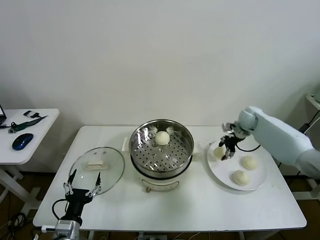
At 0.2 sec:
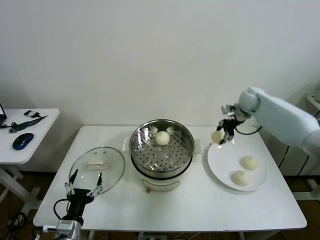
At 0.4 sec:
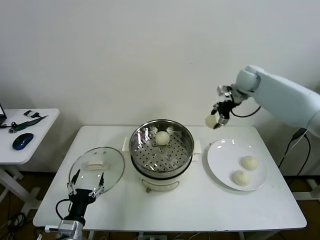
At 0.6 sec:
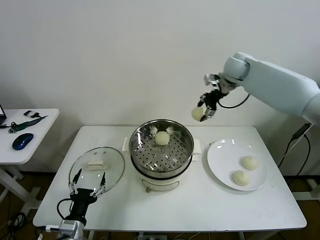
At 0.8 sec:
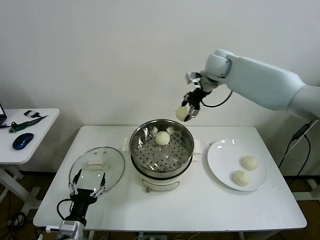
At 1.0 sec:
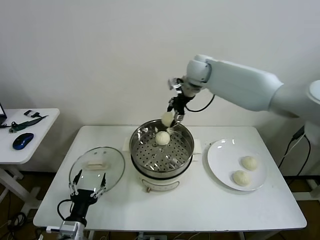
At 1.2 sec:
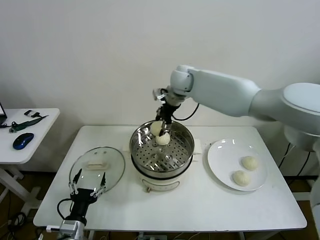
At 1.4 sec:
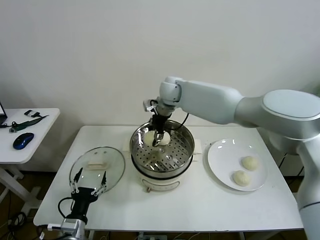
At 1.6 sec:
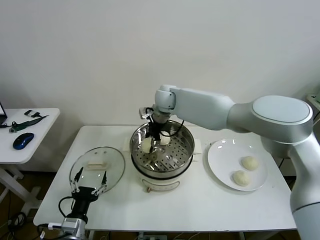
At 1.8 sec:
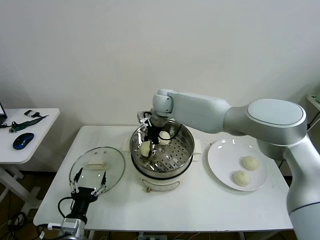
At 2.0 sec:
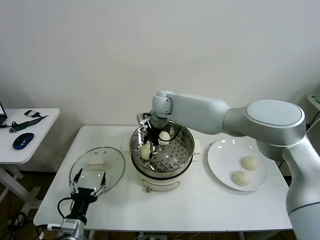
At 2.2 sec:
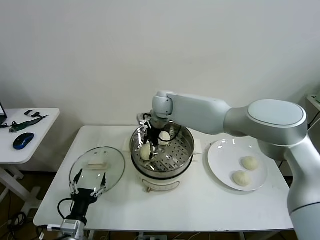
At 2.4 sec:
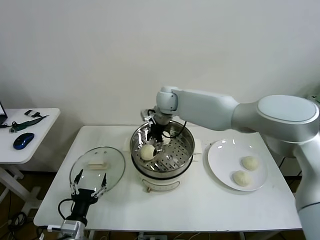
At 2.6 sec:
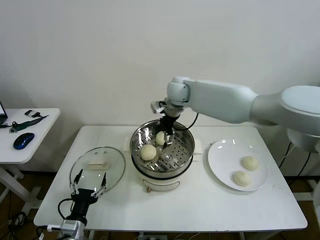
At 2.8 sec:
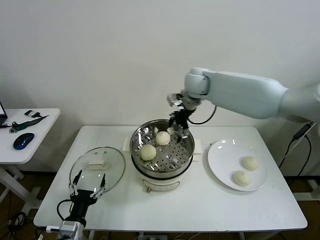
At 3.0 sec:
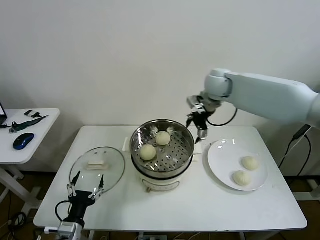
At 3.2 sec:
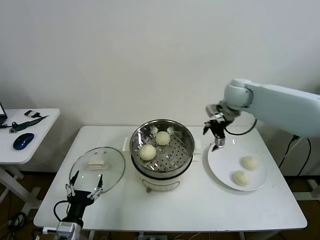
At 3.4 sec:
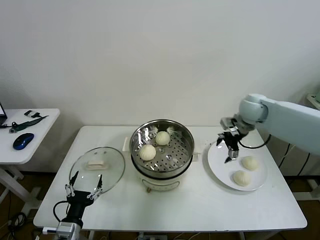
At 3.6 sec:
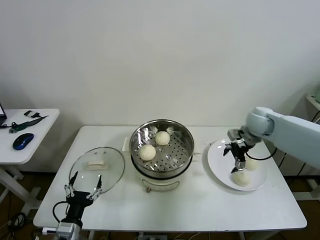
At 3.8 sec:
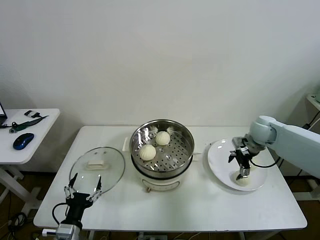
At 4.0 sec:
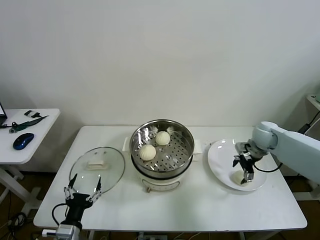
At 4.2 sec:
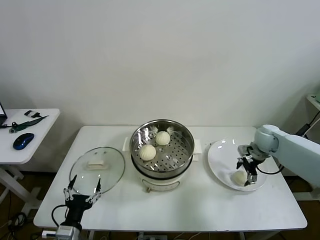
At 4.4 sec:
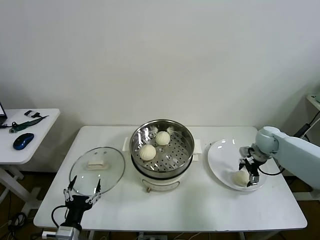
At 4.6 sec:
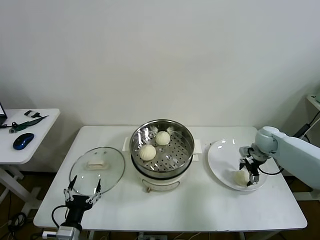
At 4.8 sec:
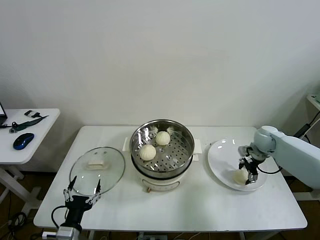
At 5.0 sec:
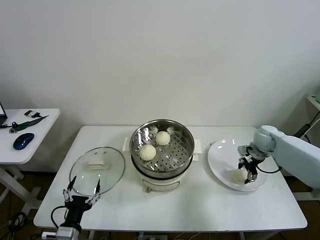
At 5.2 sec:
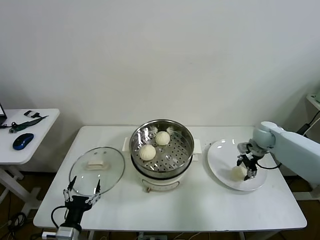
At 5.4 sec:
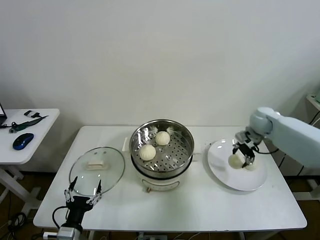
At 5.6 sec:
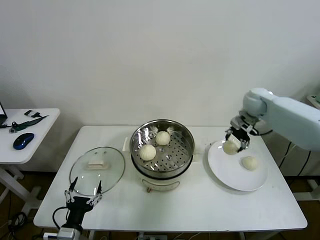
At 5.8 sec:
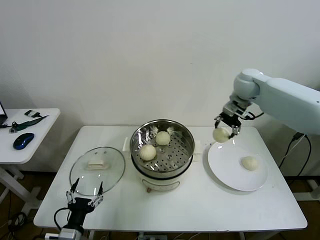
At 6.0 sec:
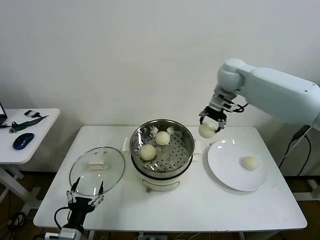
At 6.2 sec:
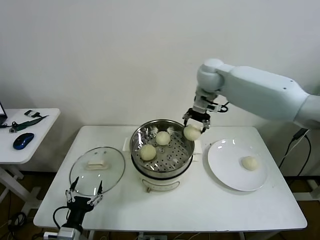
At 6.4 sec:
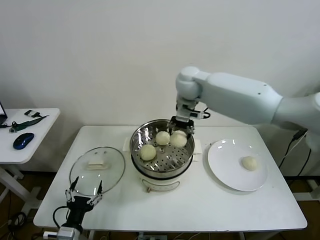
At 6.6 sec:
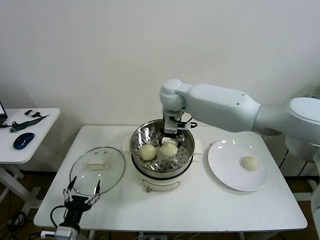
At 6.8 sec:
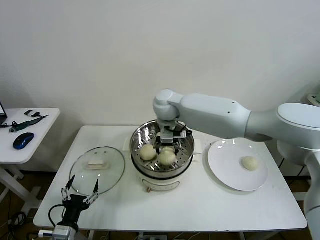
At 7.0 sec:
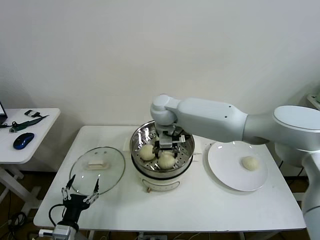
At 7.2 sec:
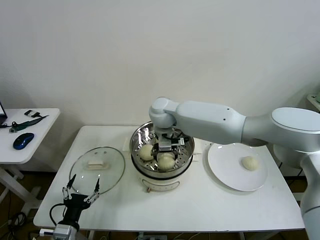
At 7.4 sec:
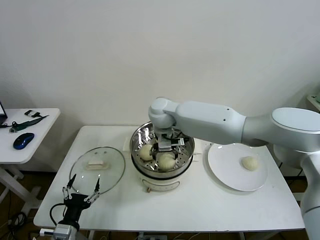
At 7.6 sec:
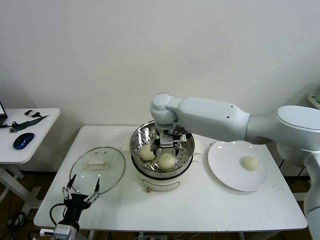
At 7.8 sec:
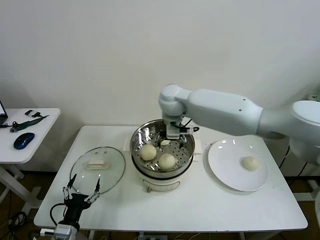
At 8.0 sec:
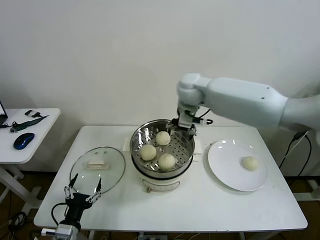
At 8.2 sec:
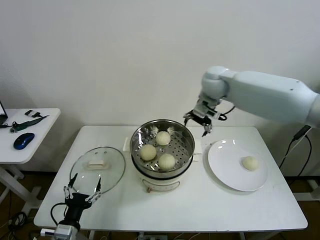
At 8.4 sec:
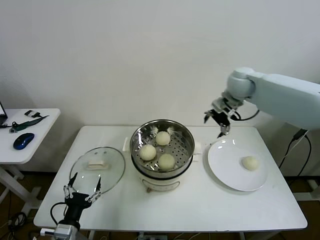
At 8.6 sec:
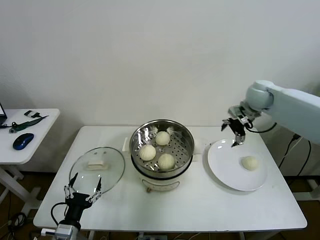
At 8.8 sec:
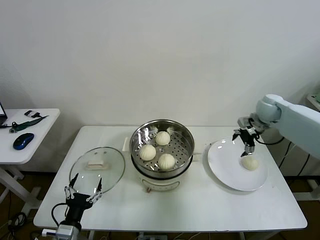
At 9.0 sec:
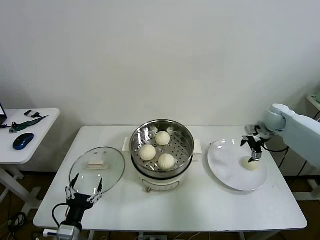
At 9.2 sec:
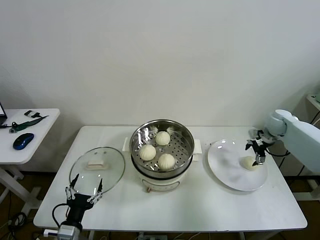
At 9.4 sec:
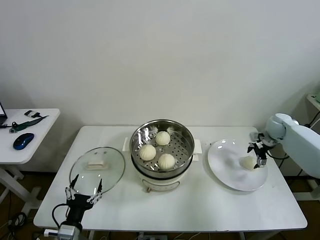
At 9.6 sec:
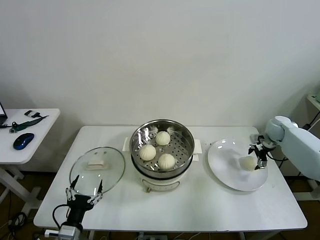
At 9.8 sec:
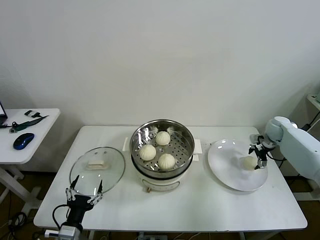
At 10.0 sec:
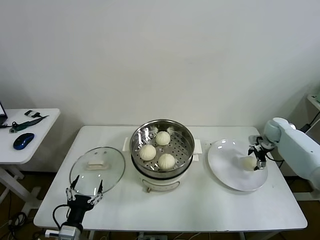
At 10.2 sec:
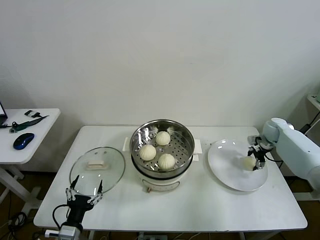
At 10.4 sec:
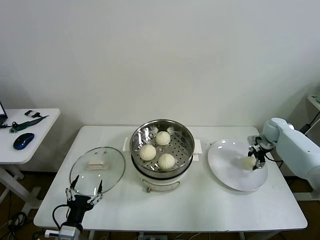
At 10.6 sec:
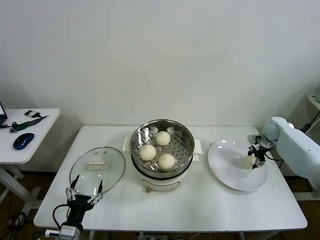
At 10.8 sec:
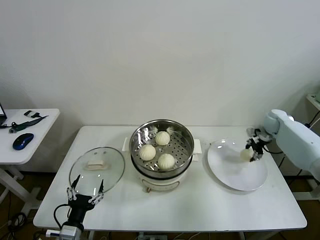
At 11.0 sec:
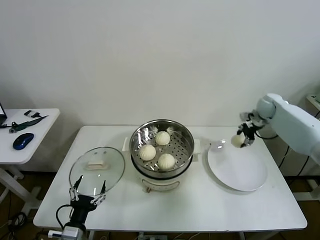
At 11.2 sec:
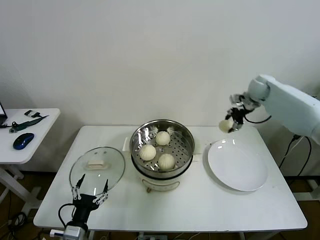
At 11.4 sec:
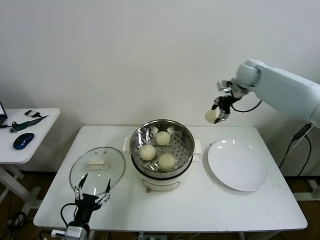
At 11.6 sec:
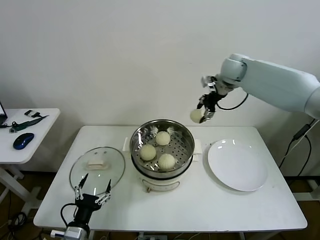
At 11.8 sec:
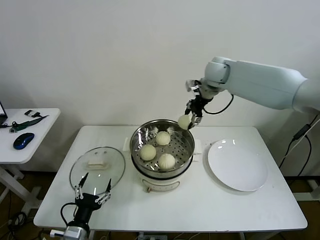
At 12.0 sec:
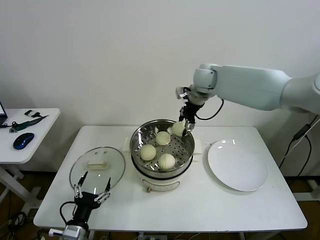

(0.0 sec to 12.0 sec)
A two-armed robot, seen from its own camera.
Task of the whole recording: take steamed baozi put them in steamer then cover it.
Step, 0.0 sec - 2.0 sec: Place the baozi on the steamer with right gripper.
Step, 2.2 sec - 4.8 sec: Grasp the baozi in the plate with right gripper.
Step, 5.0 sec - 7.4 sec: Place the baozi on the steamer with right gripper.
Step, 7.8 sec - 10.2 sec: Grasp the baozi in the plate with right gripper.
0.0 sec - 1.6 sec: The right gripper goes roughly 35 cm to the left.
1.6 sec - 3.0 sec: The right gripper heads to the right, covering roughly 20 cm, and opens.
3.0 sec - 4.4 sec: The right gripper goes roughly 30 cm downward and to the right.
4.4 sec - 6.0 sec: The right gripper goes approximately 30 cm upward and to the left, and closes up.
6.0 sec - 7.6 sec: The right gripper goes some 20 cm to the left and downward, and opens up.
7.6 sec - 9.0 sec: The right gripper heads to the right, covering about 40 cm.
9.0 sec - 10.4 sec: The right gripper is displaced downward by roughly 10 cm, and closes.
10.4 sec - 12.0 sec: The right gripper goes some 40 cm to the left and upward.

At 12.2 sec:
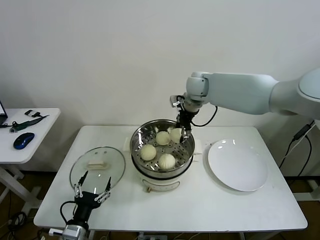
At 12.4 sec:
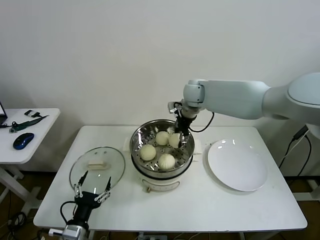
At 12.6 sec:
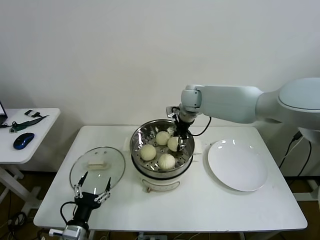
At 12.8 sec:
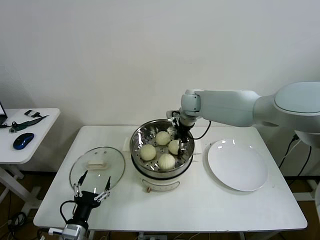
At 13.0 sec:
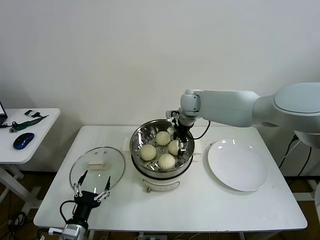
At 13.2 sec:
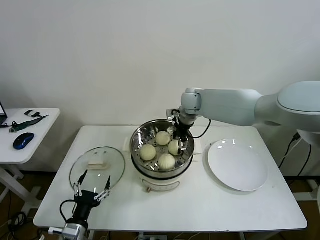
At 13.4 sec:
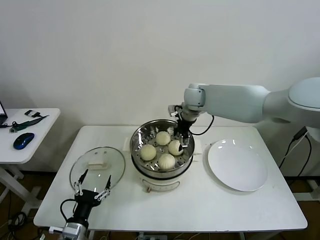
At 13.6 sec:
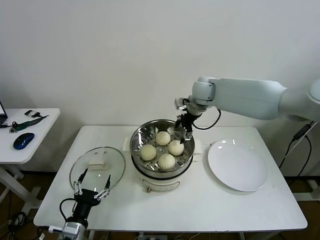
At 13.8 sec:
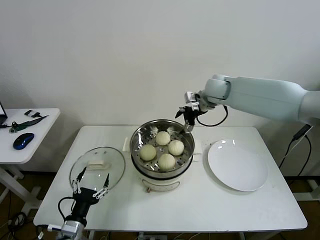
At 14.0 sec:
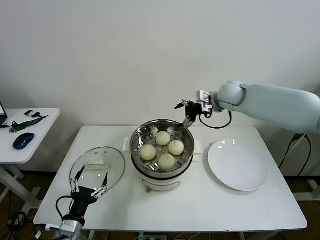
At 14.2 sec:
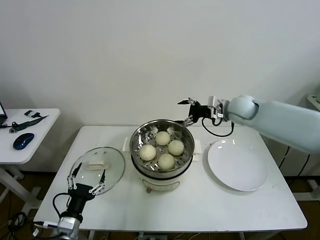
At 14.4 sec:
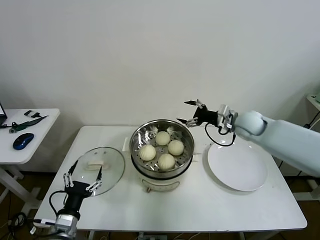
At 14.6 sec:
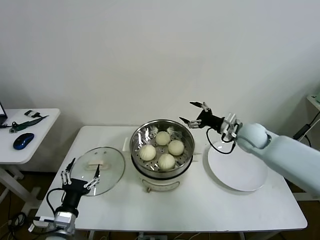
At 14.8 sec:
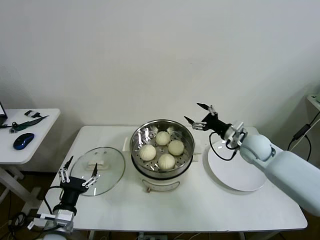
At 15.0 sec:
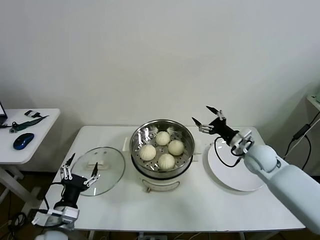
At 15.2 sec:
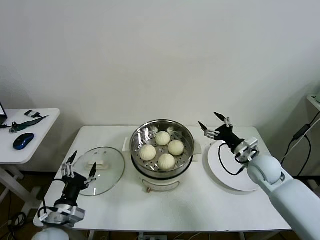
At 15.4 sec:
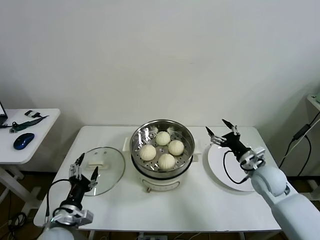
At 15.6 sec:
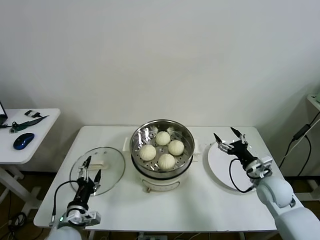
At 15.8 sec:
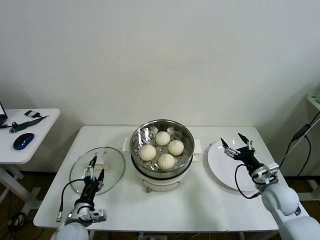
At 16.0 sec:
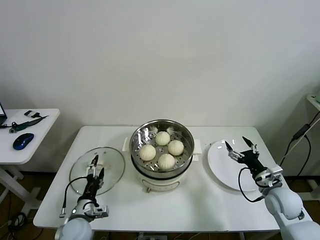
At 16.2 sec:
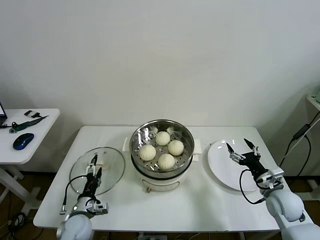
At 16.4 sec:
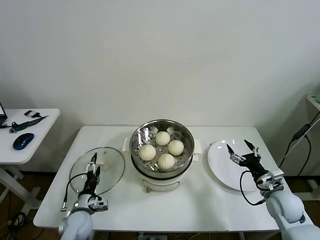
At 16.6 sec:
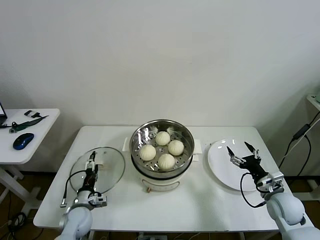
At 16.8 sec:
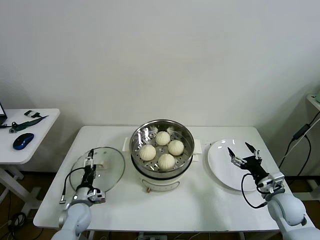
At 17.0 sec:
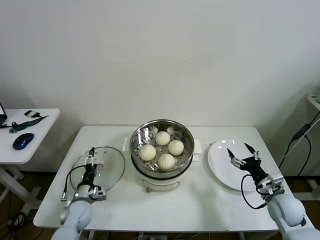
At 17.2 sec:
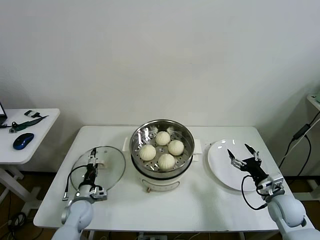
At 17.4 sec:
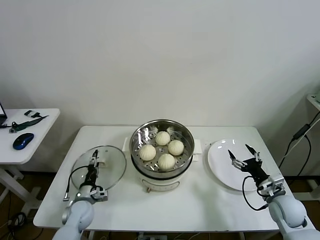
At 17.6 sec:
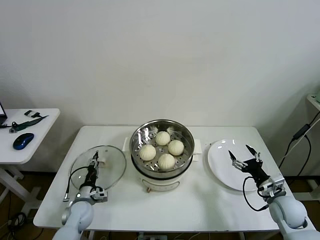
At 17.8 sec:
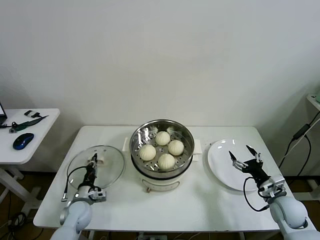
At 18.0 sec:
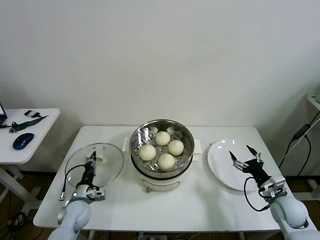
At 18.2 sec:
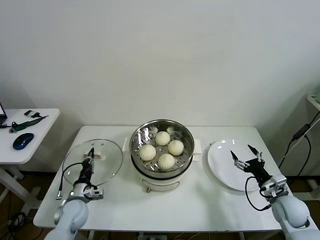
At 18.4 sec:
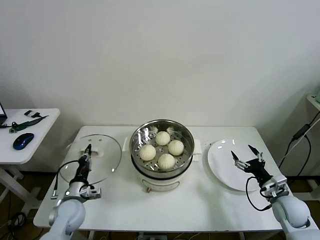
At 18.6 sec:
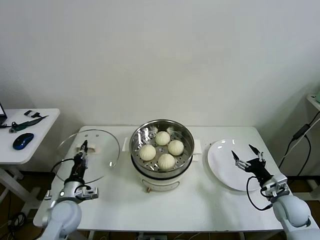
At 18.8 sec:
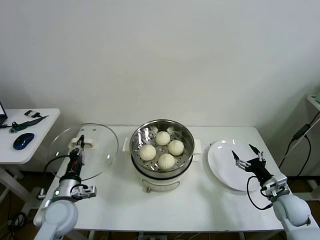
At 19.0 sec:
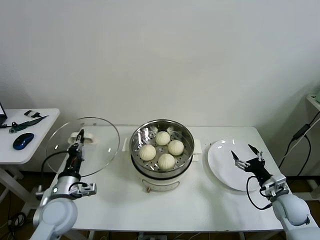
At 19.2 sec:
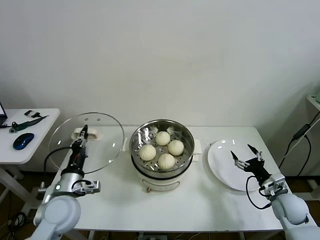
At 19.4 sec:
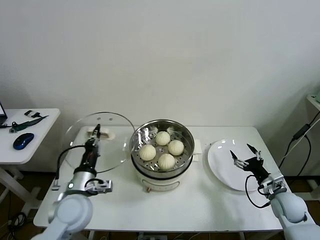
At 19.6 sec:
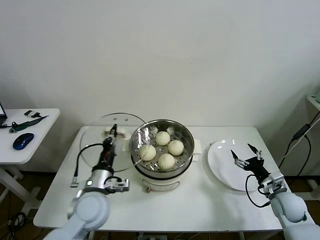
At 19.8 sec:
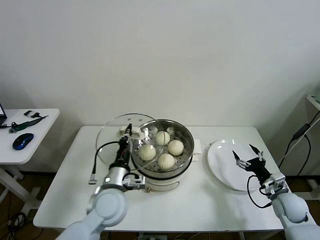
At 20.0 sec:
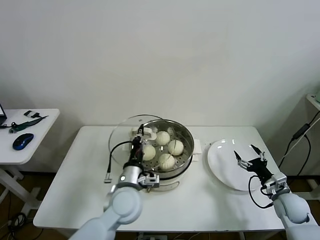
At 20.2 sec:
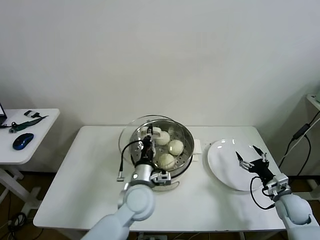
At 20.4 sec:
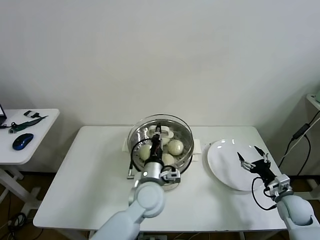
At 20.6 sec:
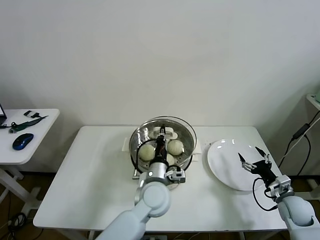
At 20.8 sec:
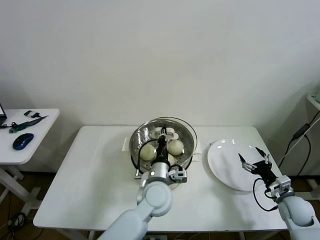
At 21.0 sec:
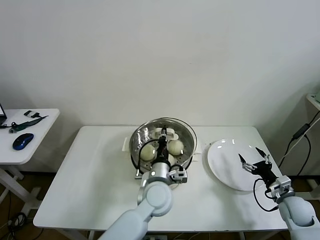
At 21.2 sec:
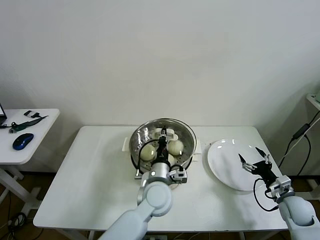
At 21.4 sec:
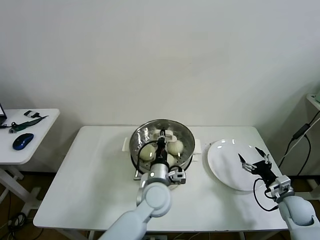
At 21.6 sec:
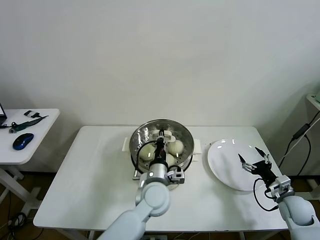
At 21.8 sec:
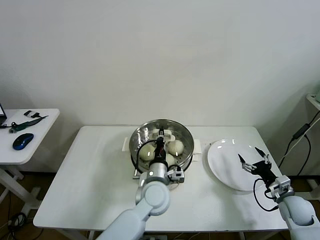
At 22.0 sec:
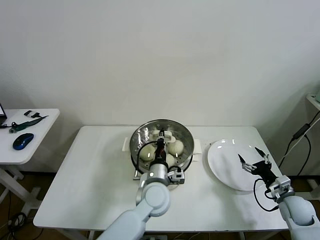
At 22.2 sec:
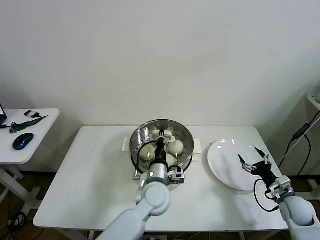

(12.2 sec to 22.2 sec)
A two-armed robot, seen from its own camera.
Task of the whole recording: take steamed baozi put them in steamer then cover it.
Step, 13.2 sec - 17.8 sec: Grasp the pot lid with left gripper.
12.2 sec - 13.6 sec: The right gripper opens.
13.6 sec - 15.0 sec: The right gripper travels to the right, downward and backward by roughly 30 cm. Meanwhile the left gripper shifts by approximately 5 cm.
15.0 sec - 16.4 sec: The right gripper is displaced backward, downward and to the right by roughly 15 cm; the left gripper is displaced downward and forward by roughly 15 cm.
16.4 sec - 18.0 sec: The left gripper closes up.
18.0 sec - 19.4 sec: The left gripper goes approximately 20 cm upward.
19.4 sec - 20.8 sec: The left gripper is displaced to the right by approximately 25 cm.
20.8 sec - 22.2 sec: The grippers move only a little.
